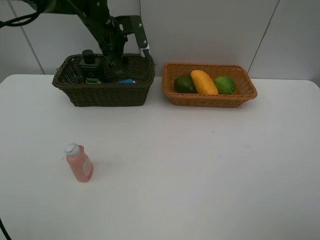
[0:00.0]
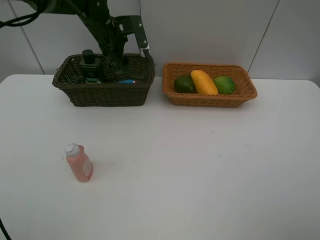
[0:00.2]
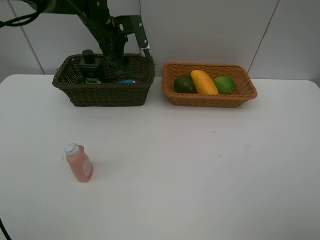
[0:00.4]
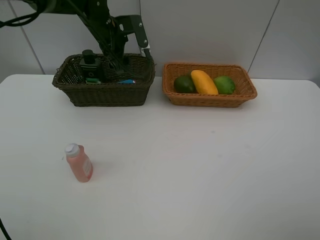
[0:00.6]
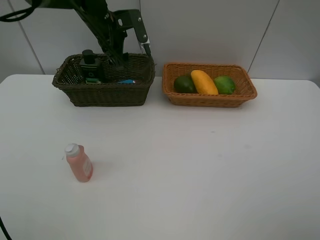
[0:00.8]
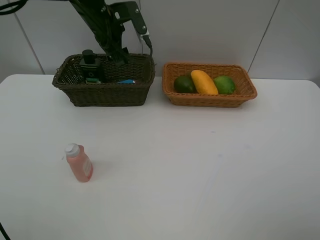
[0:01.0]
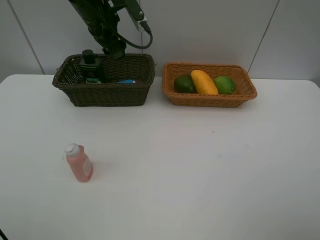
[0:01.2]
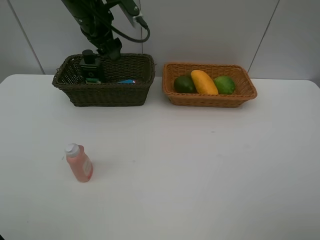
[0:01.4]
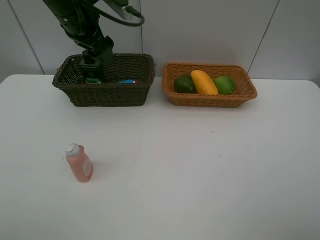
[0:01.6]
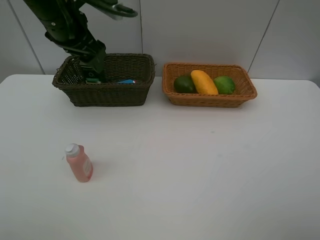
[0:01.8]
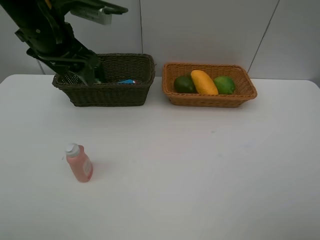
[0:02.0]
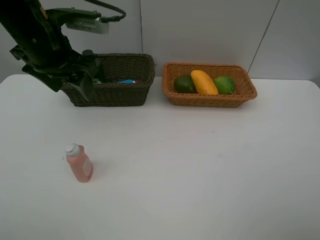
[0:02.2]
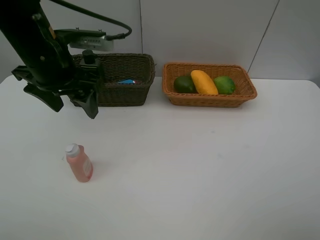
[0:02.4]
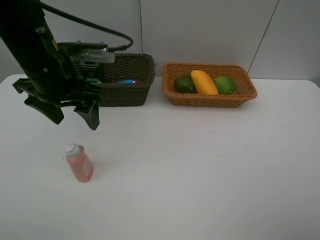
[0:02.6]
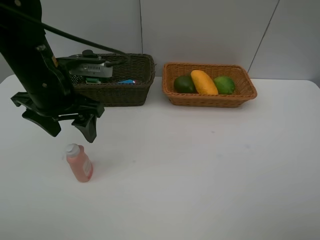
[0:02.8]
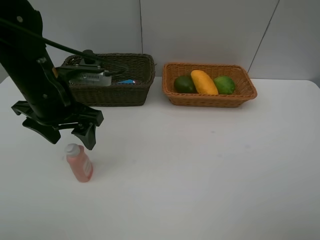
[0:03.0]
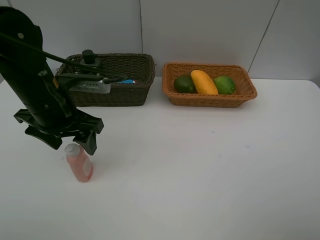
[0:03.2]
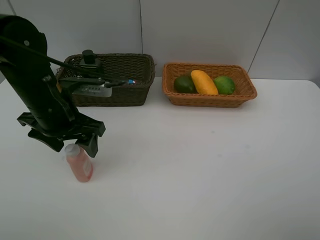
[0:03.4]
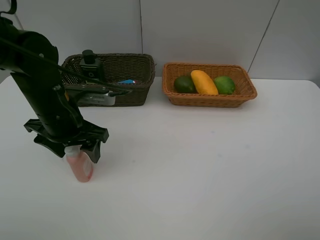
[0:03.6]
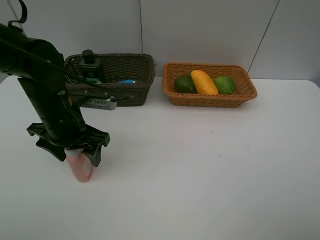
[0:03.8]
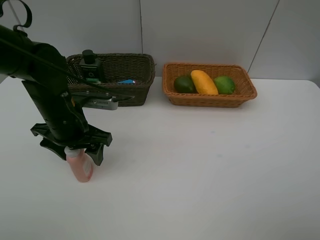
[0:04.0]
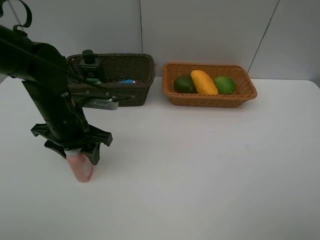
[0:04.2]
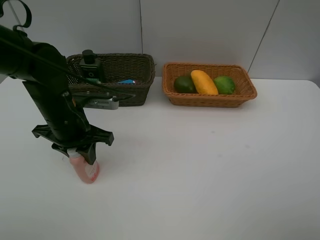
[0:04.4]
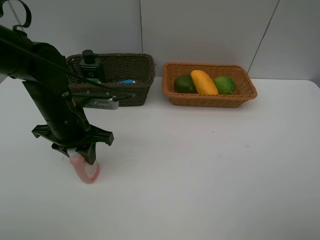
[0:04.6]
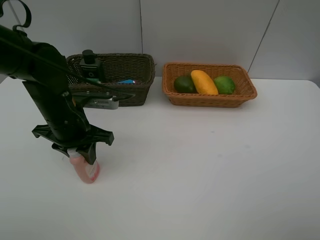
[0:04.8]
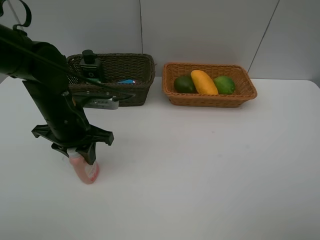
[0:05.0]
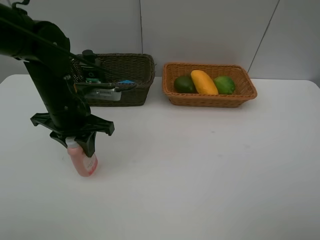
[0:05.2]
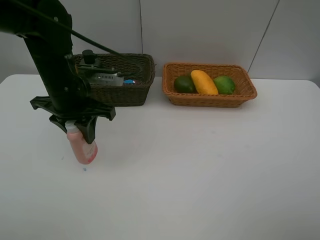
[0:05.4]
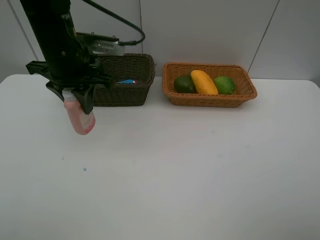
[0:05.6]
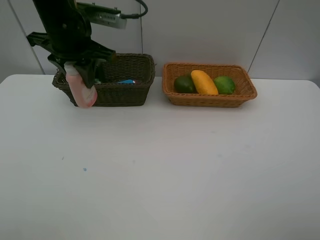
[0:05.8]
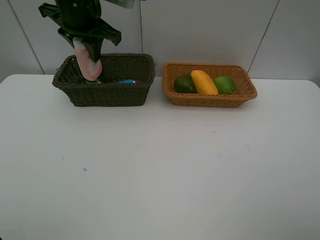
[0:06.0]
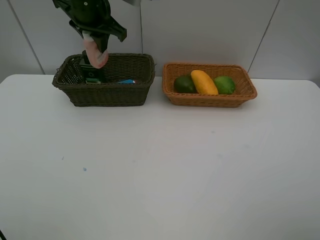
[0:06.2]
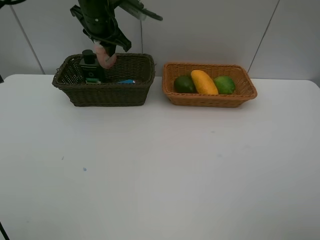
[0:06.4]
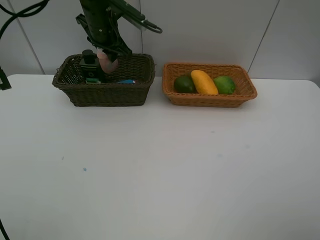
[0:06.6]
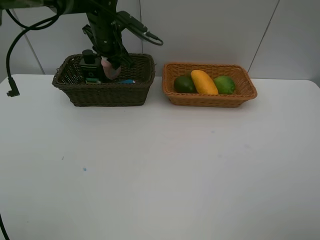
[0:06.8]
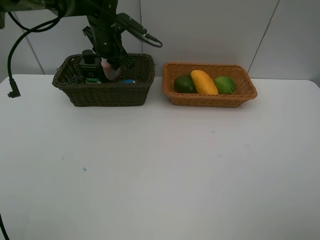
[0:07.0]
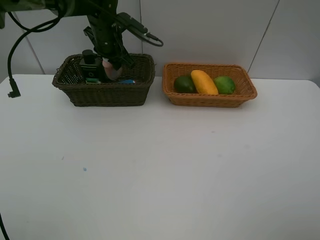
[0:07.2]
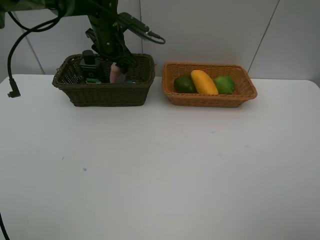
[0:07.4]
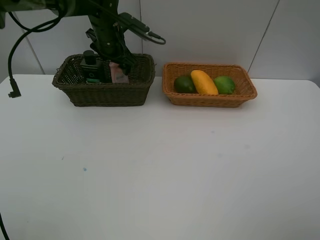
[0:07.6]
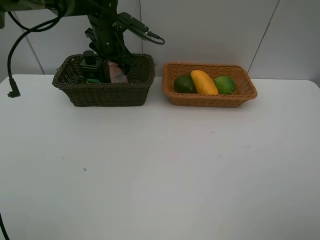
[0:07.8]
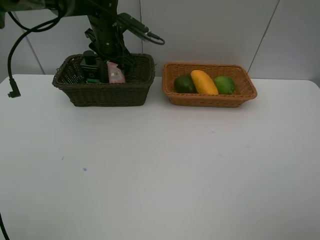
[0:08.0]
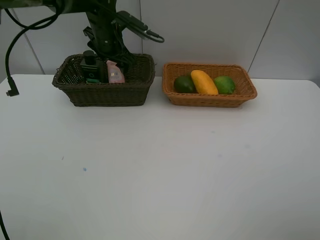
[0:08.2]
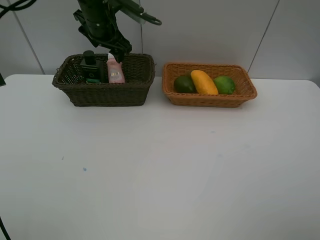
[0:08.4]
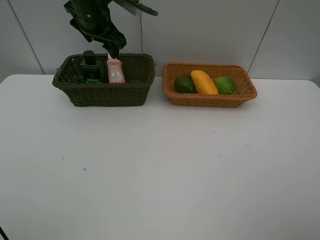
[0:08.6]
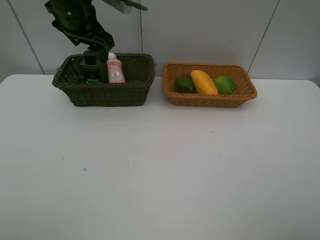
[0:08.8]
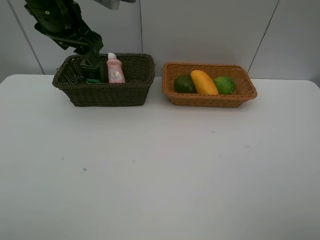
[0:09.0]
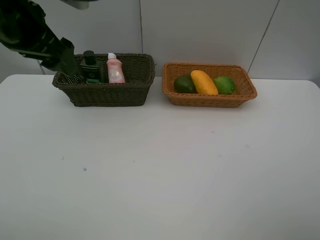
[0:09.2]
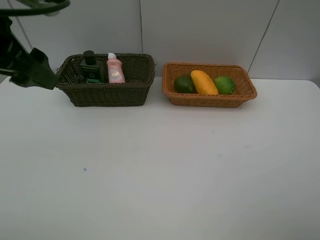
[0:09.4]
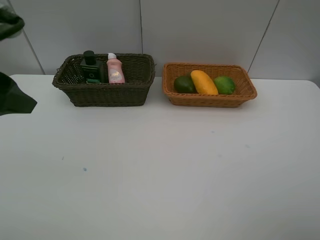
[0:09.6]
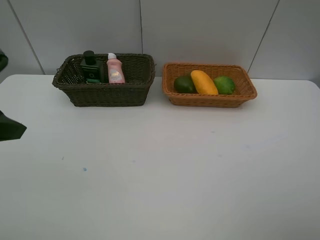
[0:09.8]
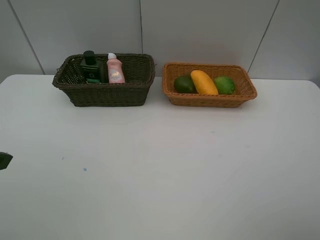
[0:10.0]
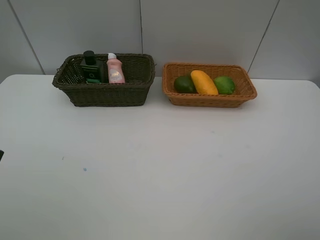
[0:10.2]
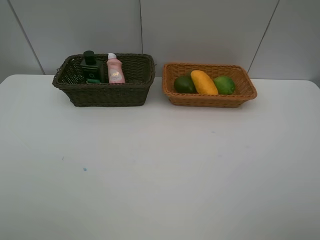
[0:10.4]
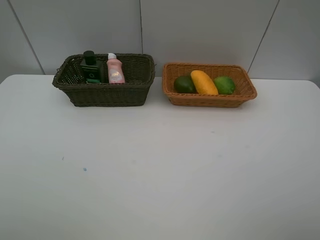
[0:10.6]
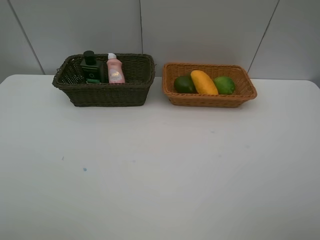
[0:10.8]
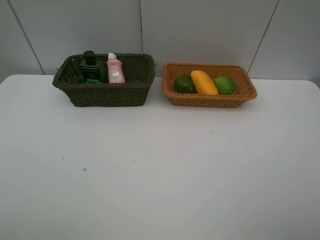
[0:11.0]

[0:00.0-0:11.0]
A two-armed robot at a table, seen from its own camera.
Task of the whole recording: Place multiple objects separately in different baskets.
Step, 0:01.0 to 0:05.2: Pick up the laundry detergent with left gripper.
Step, 0:05.4 to 0:08.2: Place the laundry detergent in the dark basket with left gripper.
0:00.0 to 0:01.6: The left gripper heads backward and upward, covering some 10 cm.
0:01.6 to 0:03.2: The left gripper is displaced backward and downward by approximately 15 cm.
0:03.2 to 0:04.8: The left gripper closes.
0:04.8 to 0:06.2: The left gripper is displaced forward and upward by approximately 20 cm.
0:06.2 to 0:07.8: The left gripper moves downward and forward, some 10 cm, and opens its fingers.
0:07.8 to 0:09.4: The left gripper travels backward, upward and to the left by some 30 cm.
0:09.4 to 0:11.0: The left gripper is displaced backward by approximately 20 cm.

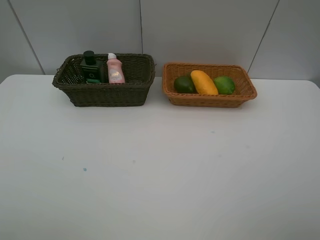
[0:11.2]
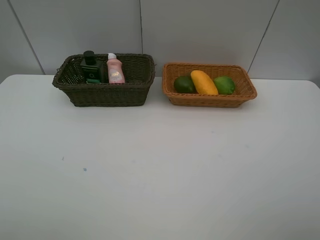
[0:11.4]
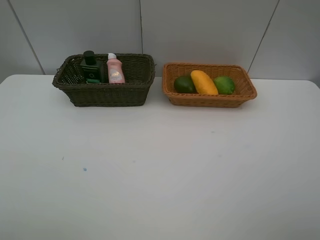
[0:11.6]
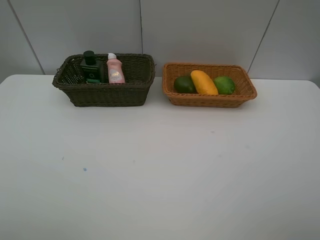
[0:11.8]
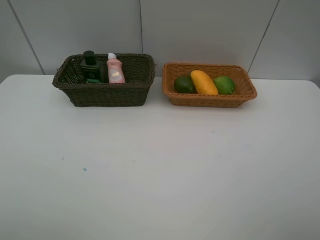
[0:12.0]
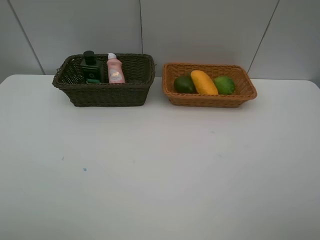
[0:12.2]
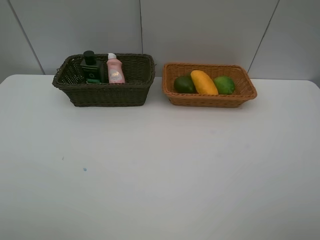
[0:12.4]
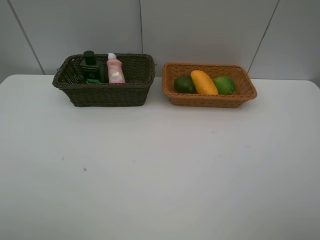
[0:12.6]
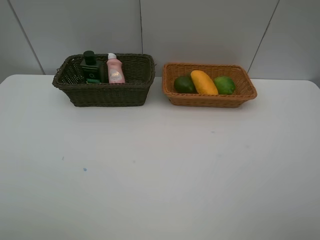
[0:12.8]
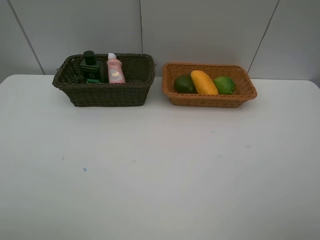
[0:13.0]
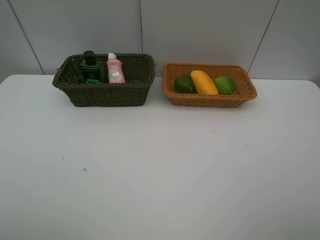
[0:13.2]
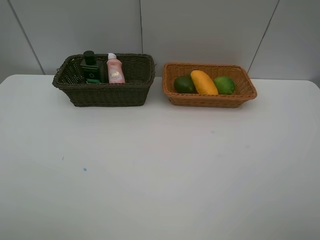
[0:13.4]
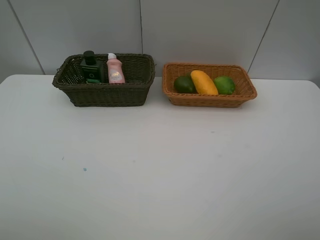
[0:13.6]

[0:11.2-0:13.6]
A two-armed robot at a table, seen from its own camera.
Task of the whole recording: Place multiple objects separately in different baskets.
0:12.4 to 0:13.6: Both grippers stay about where they are.

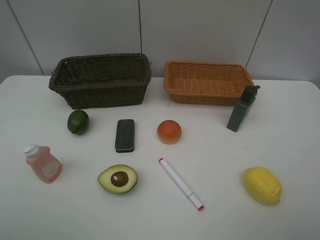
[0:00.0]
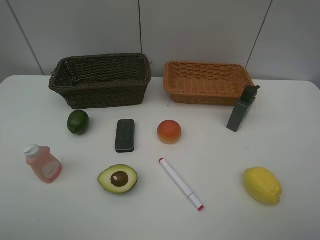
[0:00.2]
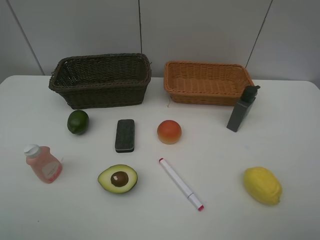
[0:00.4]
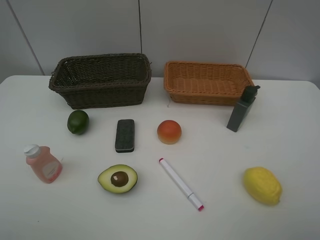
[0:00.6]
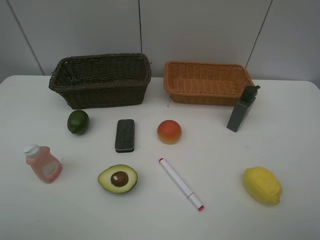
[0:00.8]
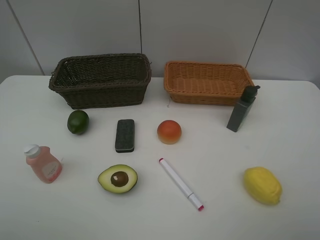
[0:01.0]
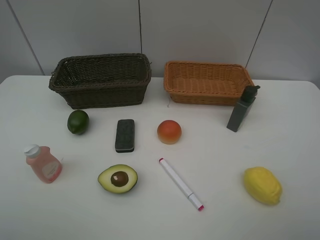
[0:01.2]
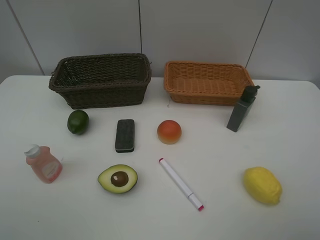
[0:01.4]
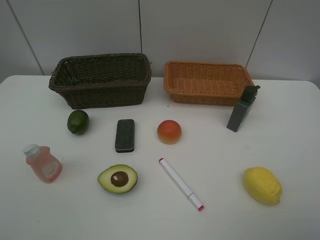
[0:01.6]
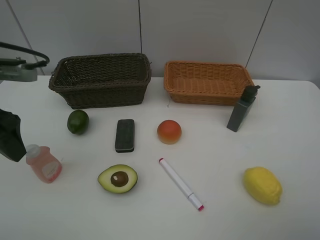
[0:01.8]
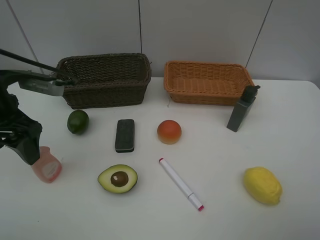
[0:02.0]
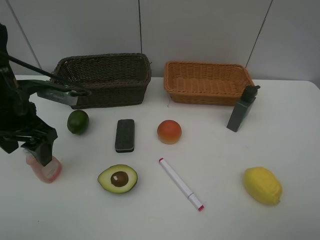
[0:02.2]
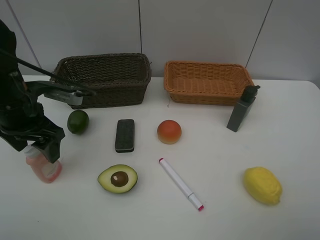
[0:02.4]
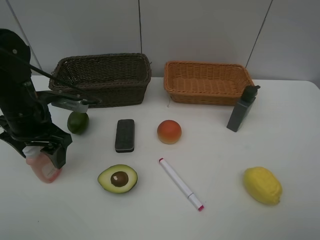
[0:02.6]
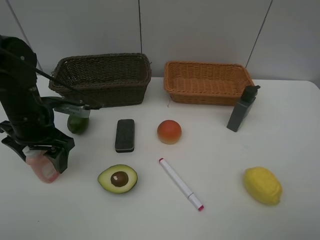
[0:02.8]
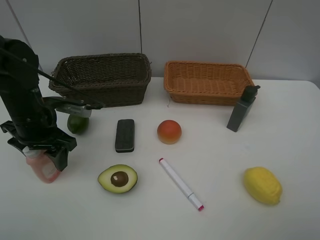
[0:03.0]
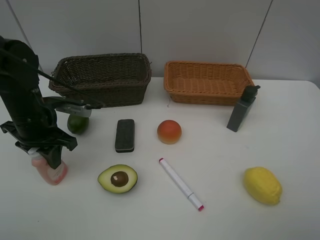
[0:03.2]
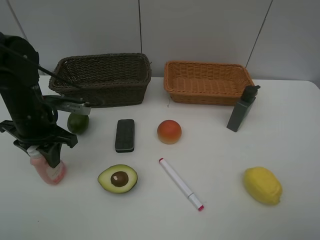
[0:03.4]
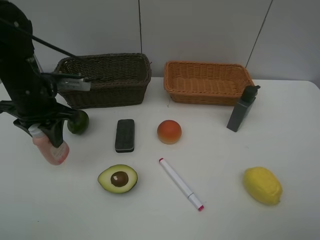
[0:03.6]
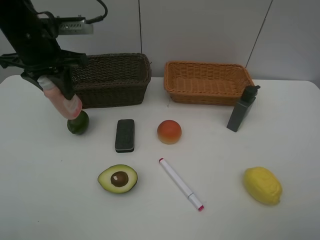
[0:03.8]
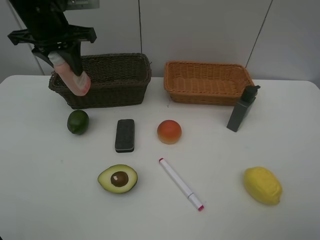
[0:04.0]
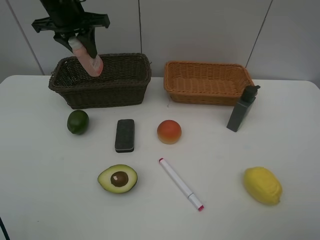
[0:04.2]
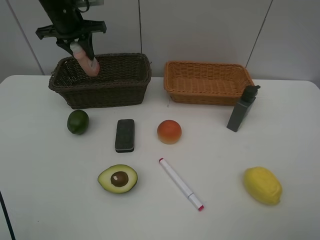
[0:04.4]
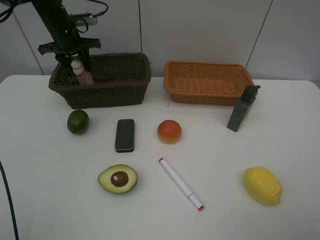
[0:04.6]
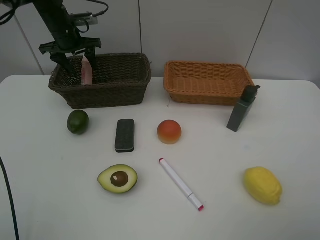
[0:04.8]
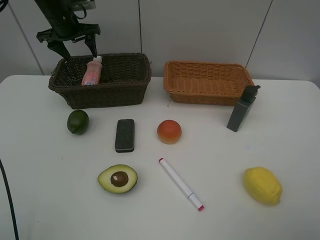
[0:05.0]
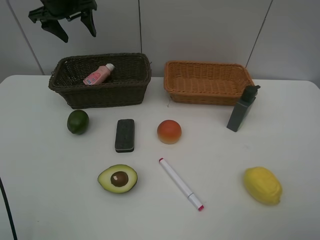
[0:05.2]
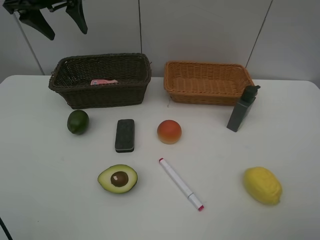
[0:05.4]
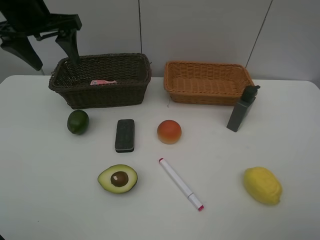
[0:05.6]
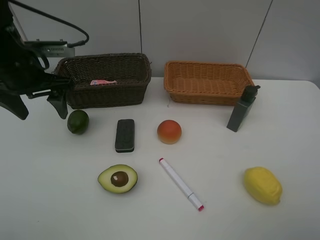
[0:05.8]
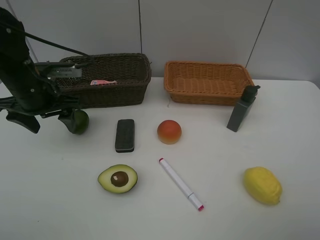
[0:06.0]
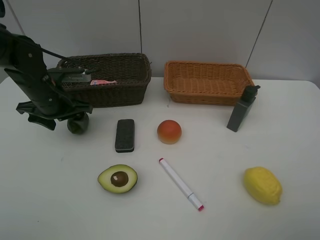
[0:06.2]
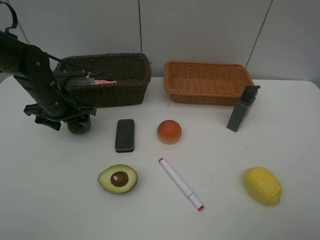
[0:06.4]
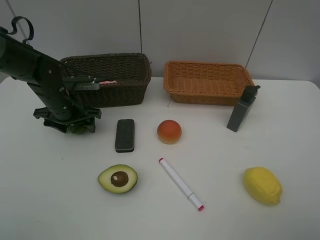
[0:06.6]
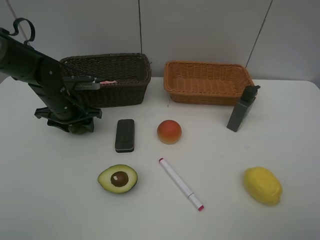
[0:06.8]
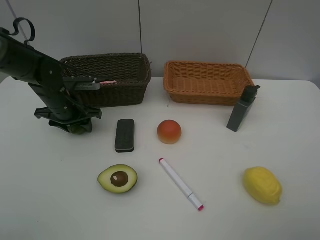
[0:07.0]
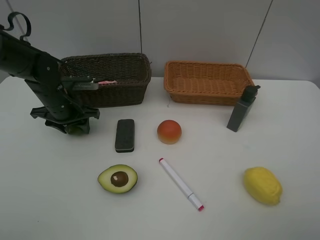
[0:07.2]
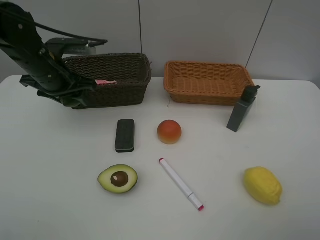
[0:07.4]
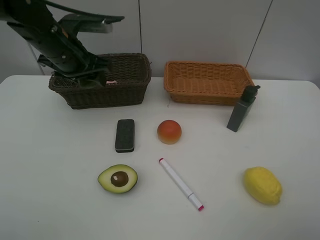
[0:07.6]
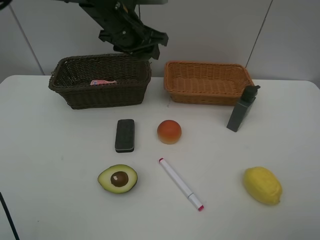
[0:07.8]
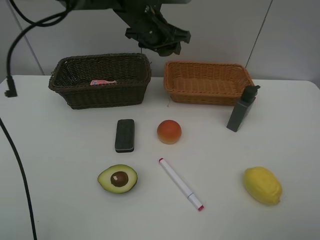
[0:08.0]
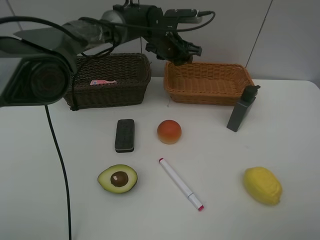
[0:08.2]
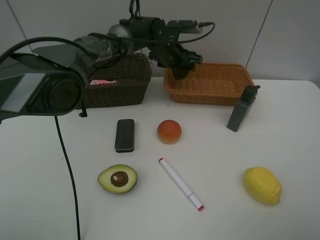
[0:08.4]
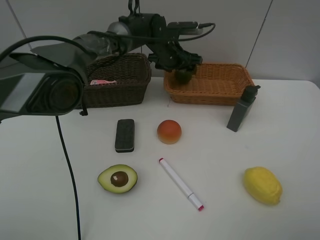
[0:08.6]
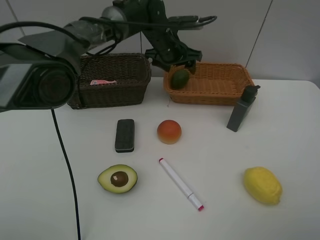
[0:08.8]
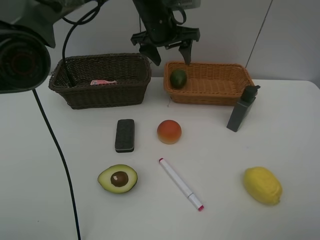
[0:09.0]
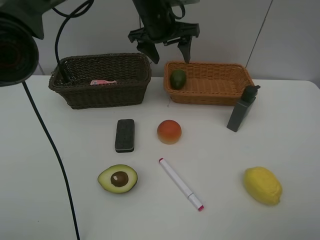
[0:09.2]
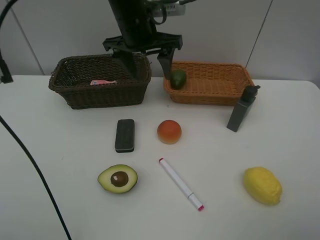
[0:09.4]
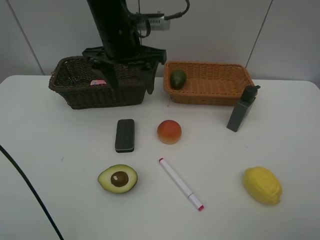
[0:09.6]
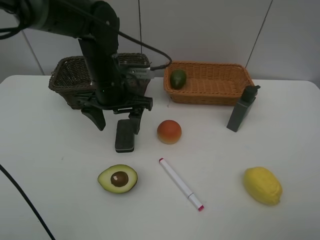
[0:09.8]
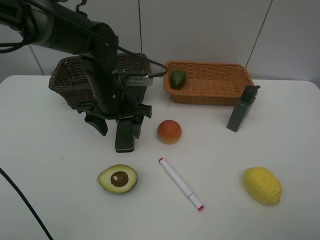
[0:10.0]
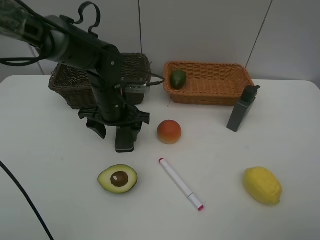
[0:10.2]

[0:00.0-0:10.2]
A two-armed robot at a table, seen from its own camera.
Task of the whole recording: Place multiple objects separately in different baskets.
Step, 0:00.0 to 0:03.6: Pick up the laundry detergent with left gripper.
Step, 0:03.8 to 0:04.8: Place the laundry detergent in the dark basket with left gripper.
Step, 0:05.0 to 0:07.2: Pick up the lime with left gripper.
Step, 0:07.4 to 0:08.8: Place the lime in the light basket with left gripper.
0:01.4 to 0:03.0: The left gripper moves forward and downward, roughly 25 cm, and closes its fingers.
0:03.0 to 0:04.4: The left gripper heads forward and upward, covering some 25 cm, and closes up.
0:04.4 to 0:05.8: The left gripper shifts about 15 cm backward, and opens its fingers.
0:05.8 to 0:07.2: The left gripper travels downward by roughly 10 cm, and closes up.
0:07.2 to 0:08.8: The left gripper heads to the right and forward, covering approximately 25 cm, and opens its fingers.
0:08.8 to 0:10.2: The left gripper is displaced backward, to the left and downward by some 20 cm.
